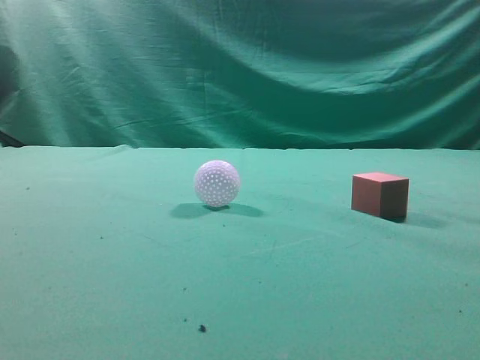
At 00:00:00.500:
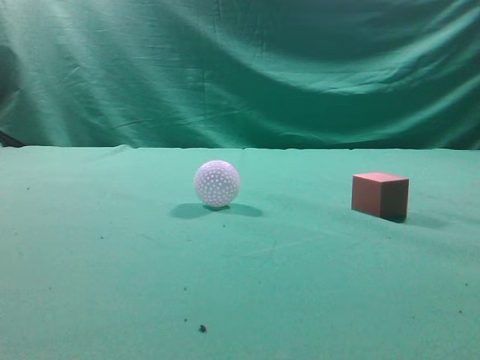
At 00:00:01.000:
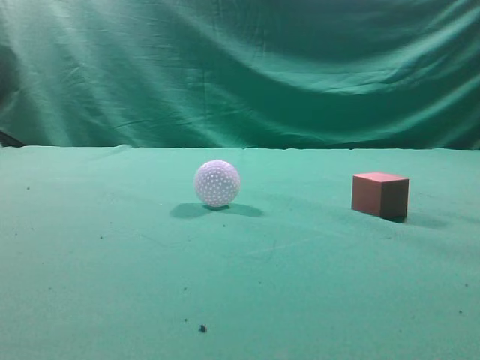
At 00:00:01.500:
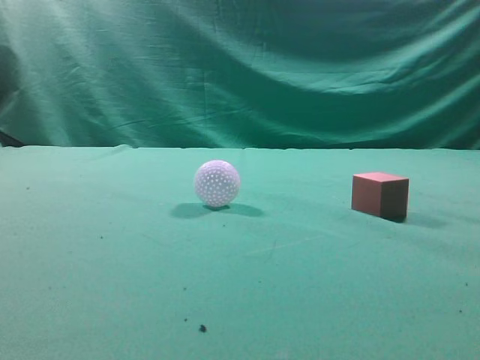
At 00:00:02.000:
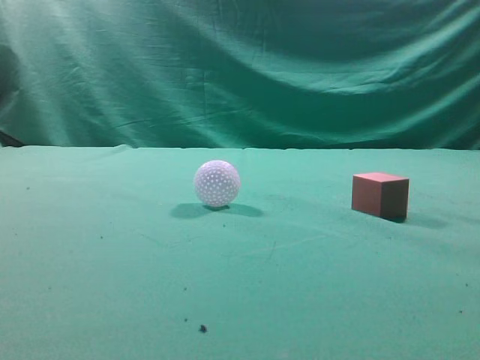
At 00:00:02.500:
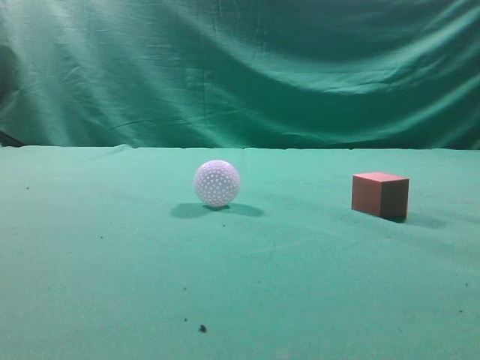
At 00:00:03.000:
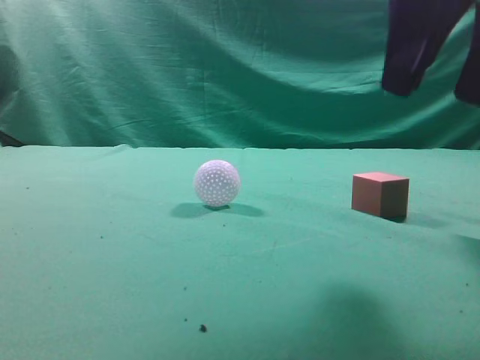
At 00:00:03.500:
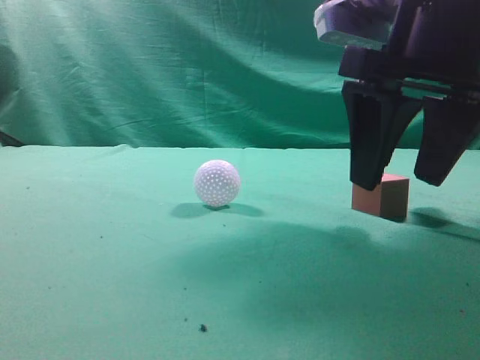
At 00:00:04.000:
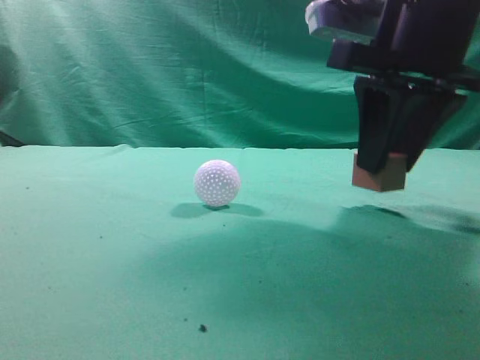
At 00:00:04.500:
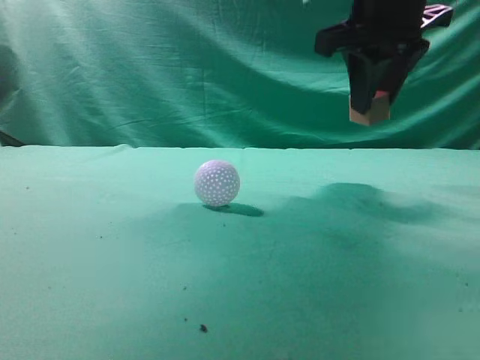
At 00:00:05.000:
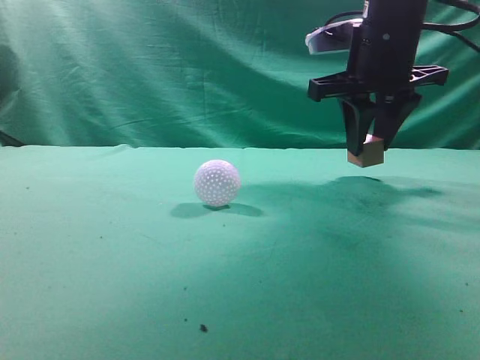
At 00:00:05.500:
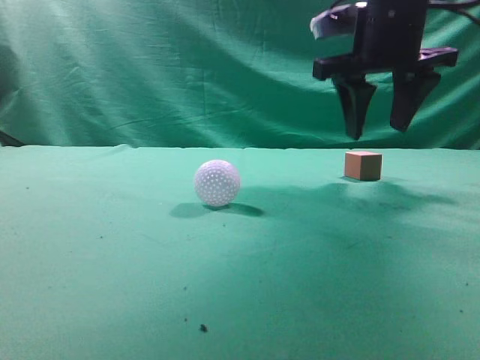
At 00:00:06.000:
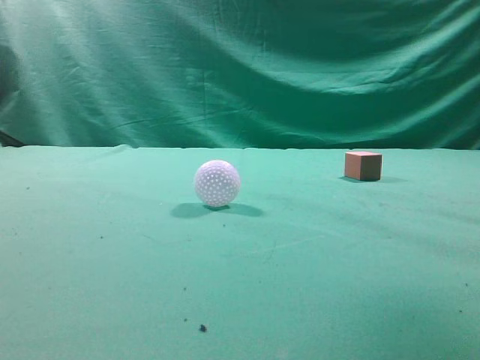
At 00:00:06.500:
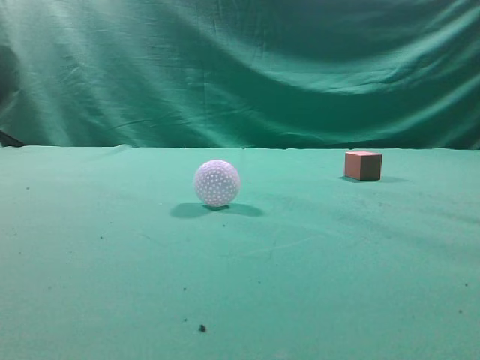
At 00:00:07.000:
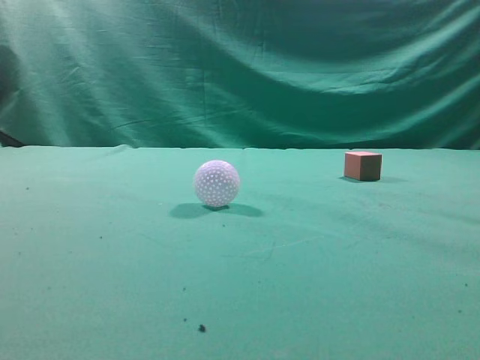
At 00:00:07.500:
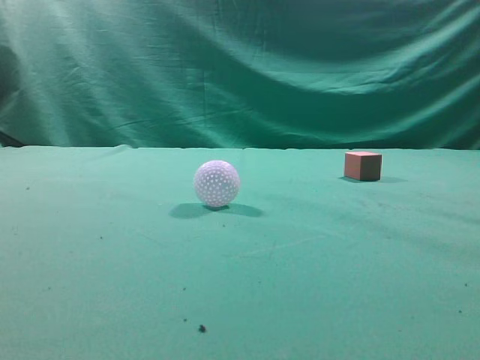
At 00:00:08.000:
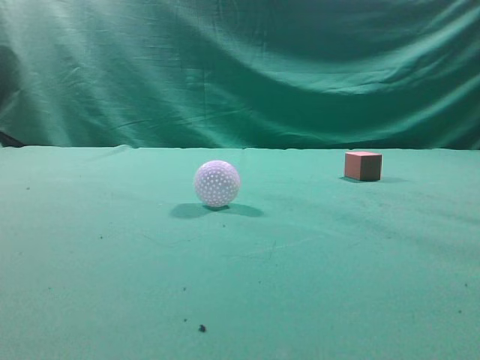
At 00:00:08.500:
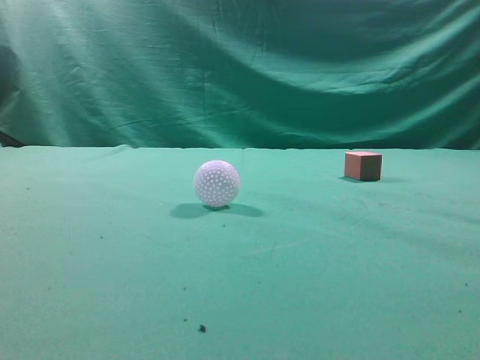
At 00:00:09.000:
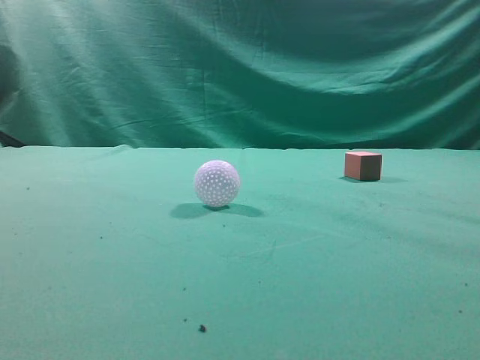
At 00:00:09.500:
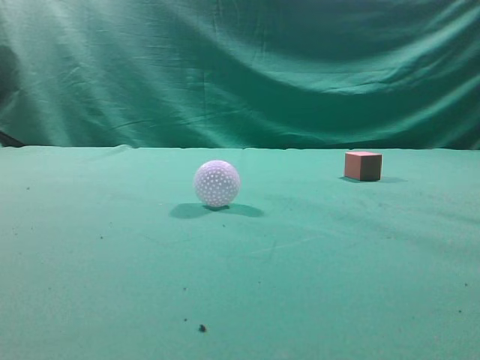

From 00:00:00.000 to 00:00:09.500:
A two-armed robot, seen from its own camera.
Task of the whole recording: pick up the cube block and place it in another position on the table.
Step, from 00:00:00.000 to 00:00:04.000: Pick up the small cube.
Step, from 00:00:04.500 to 00:00:05.000: Place the small cube on the ahead of the table.
From 00:00:02.000 to 00:00:04.000: The right gripper goes about 25 cm forward, to the left and downward, and opens.
From 00:00:04.000 to 00:00:05.500: The right gripper is displaced forward by some 10 cm.
From 00:00:05.500 to 00:00:07.500: The right gripper goes approximately 35 cm backward, and closes.
